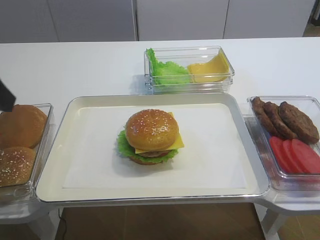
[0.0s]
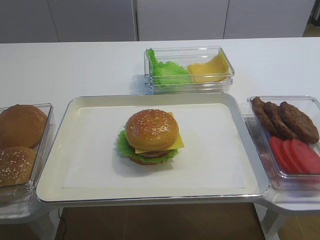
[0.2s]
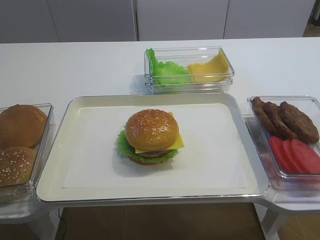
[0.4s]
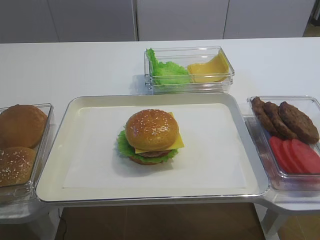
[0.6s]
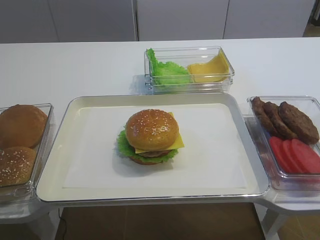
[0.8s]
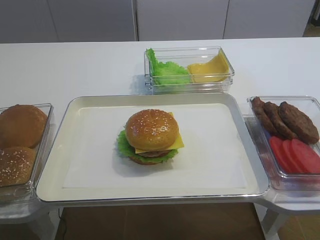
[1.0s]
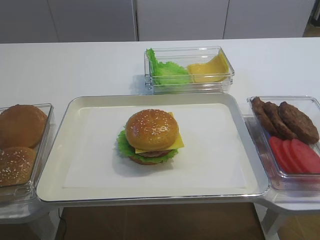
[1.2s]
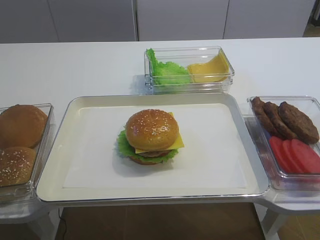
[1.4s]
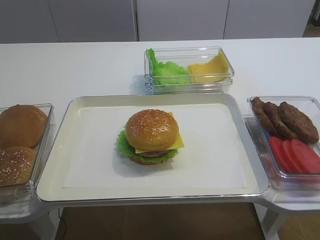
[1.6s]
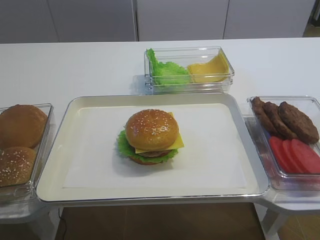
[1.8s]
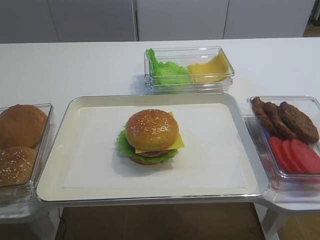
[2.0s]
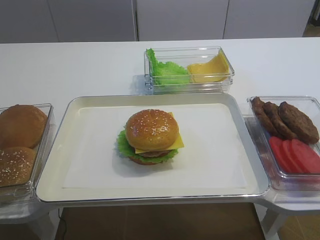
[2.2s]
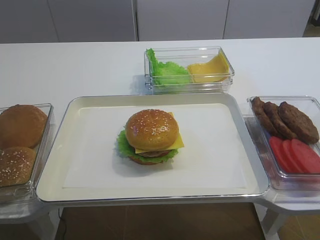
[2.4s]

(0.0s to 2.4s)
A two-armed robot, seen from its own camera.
0.0s - 1.2s: The left gripper goes about 20 cm backward.

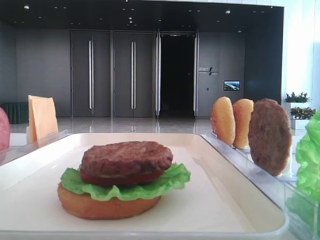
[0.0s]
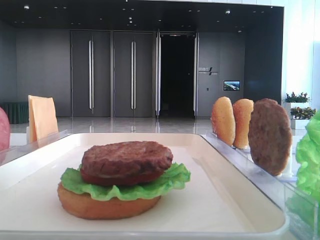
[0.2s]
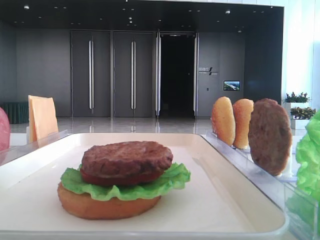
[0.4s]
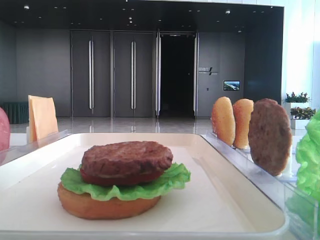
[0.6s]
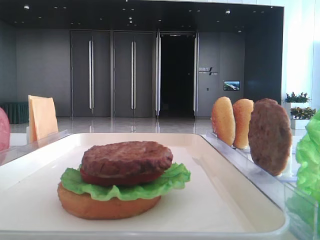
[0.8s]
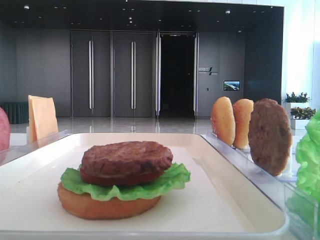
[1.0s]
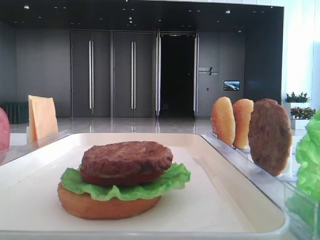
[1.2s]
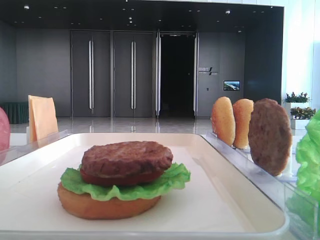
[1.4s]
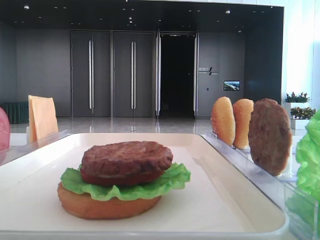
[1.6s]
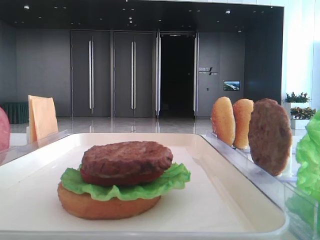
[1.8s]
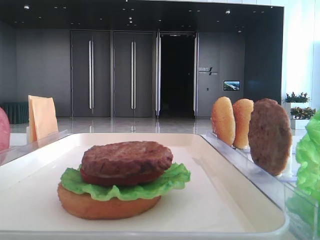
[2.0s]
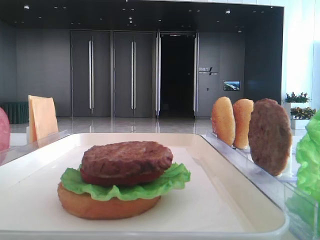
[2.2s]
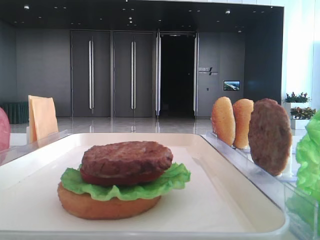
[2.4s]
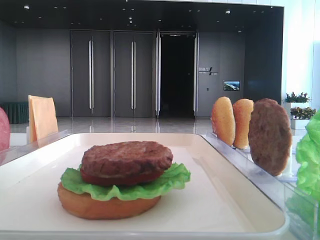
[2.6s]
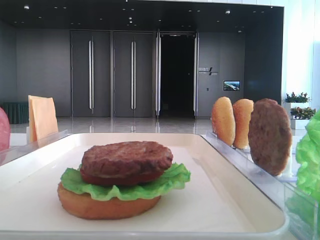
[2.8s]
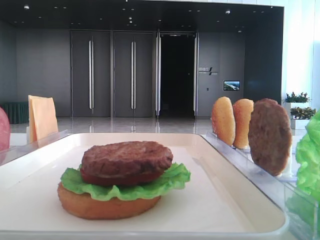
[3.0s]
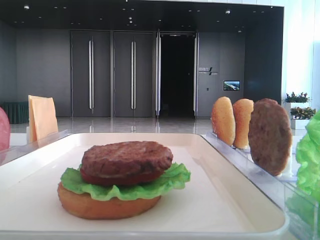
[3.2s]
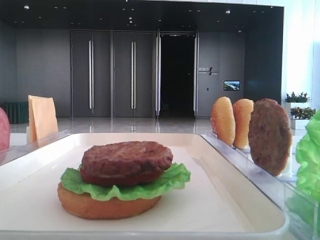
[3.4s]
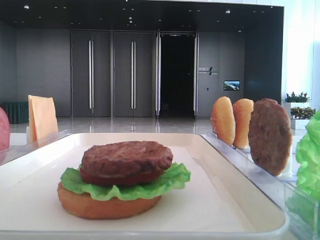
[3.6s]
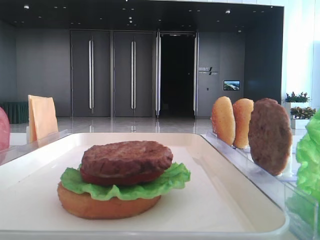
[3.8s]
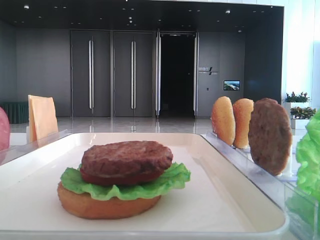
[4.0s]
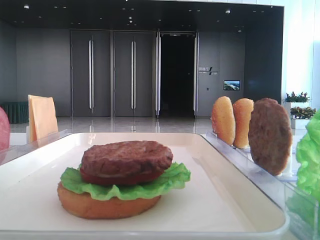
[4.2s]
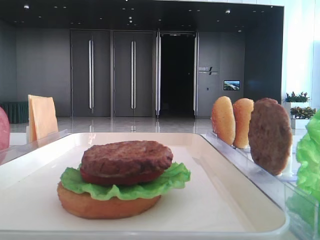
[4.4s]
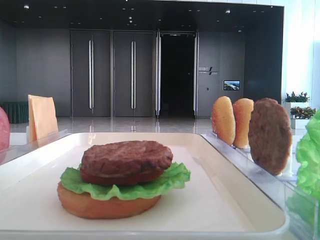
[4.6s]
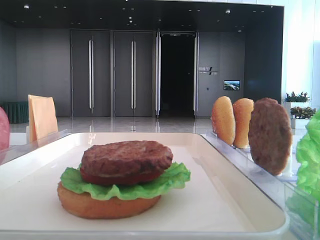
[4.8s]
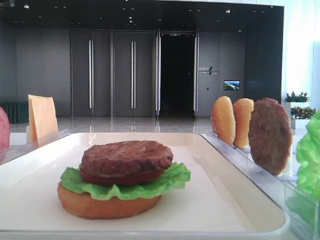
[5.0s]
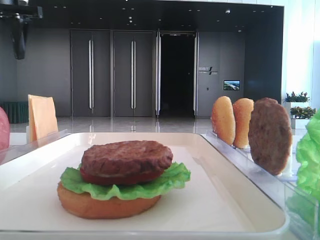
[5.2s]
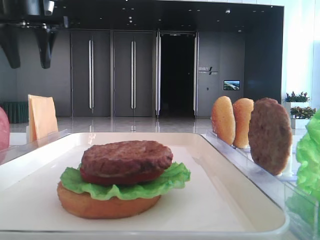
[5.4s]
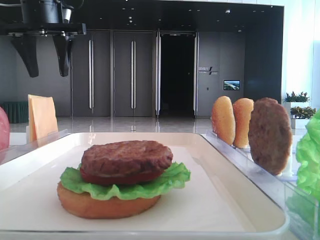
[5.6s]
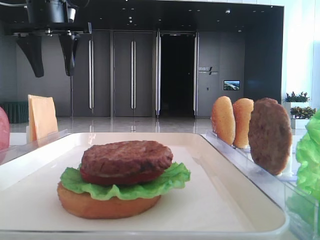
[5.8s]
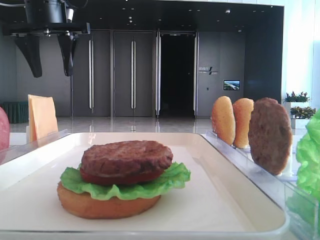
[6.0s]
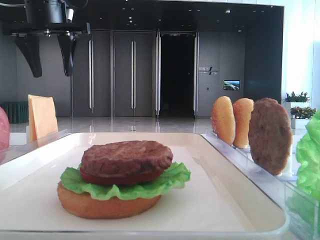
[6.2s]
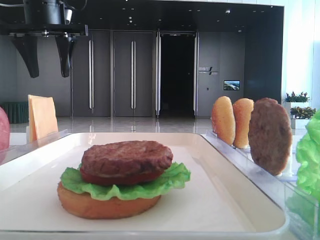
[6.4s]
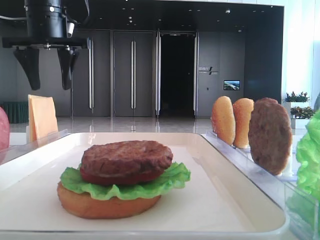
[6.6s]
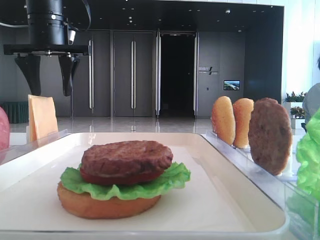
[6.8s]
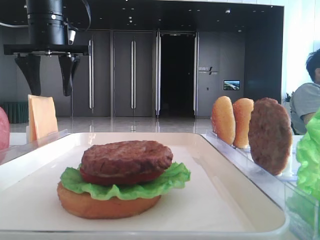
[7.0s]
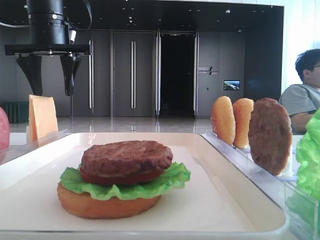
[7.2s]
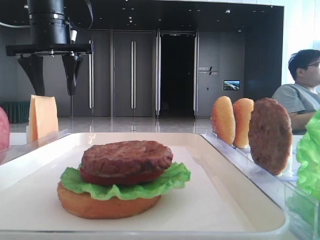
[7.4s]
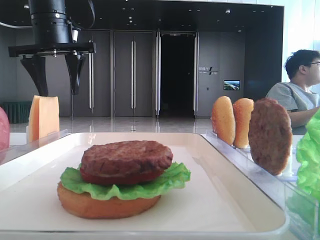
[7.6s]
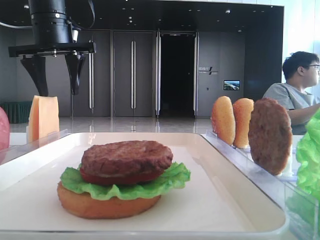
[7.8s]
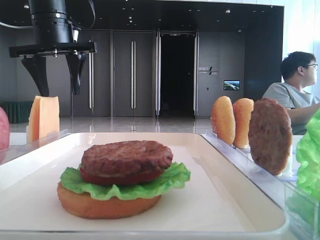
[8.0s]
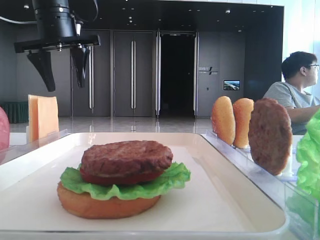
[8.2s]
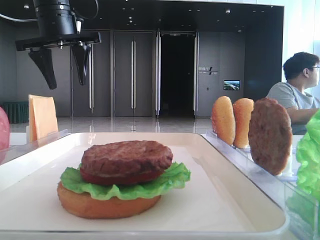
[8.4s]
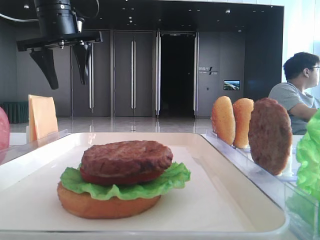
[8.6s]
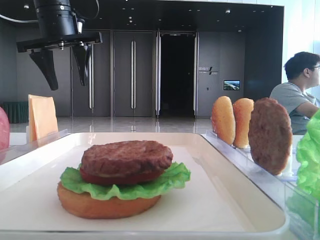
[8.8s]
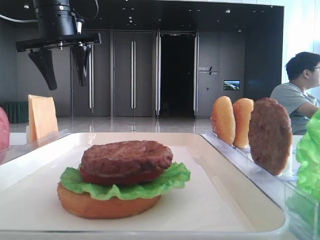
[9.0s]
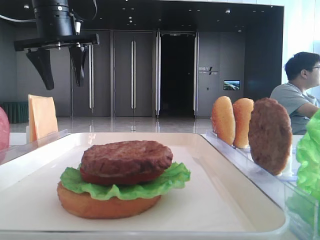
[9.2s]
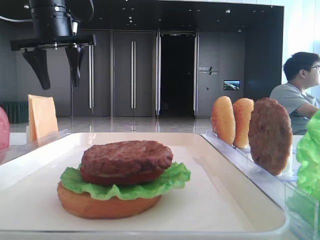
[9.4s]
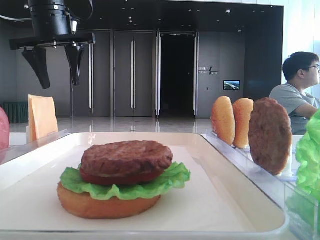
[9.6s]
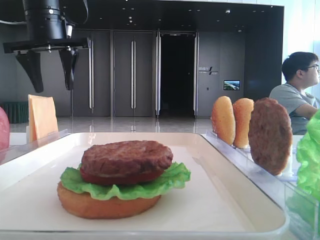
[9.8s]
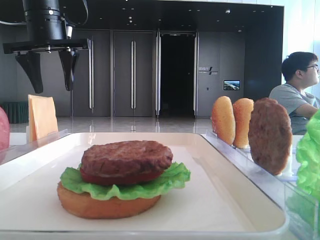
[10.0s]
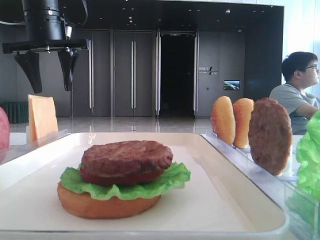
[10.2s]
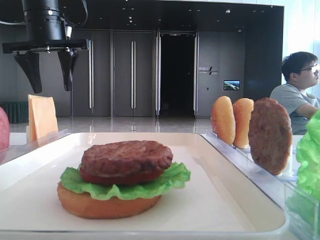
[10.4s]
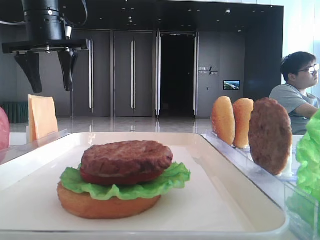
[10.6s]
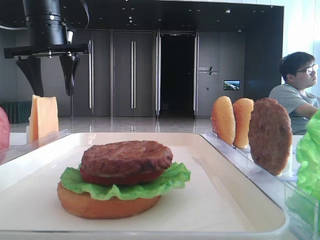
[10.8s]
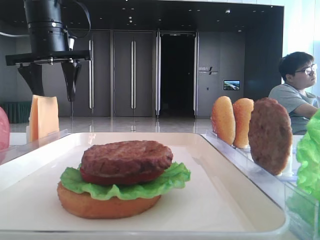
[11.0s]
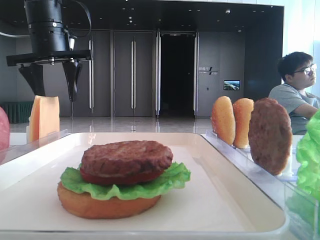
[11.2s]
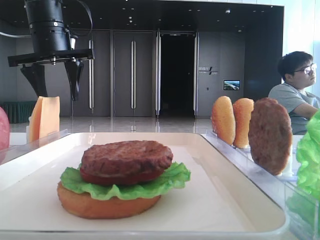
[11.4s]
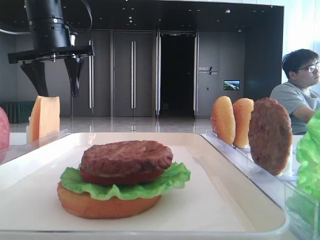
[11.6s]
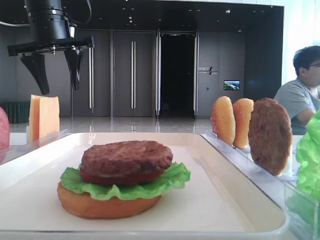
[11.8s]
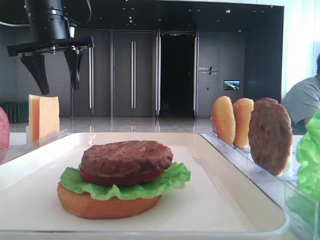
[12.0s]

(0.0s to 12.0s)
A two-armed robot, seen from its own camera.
4.4s - 6.0s: The left gripper heads to the right, forward and downward, covering some 20 cm.
6.0s - 12.0s: The grippers move only a little.

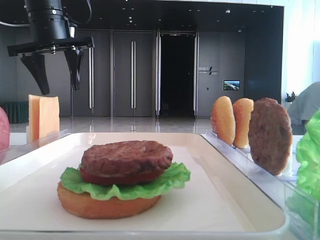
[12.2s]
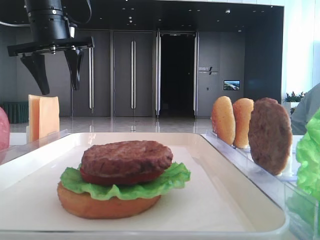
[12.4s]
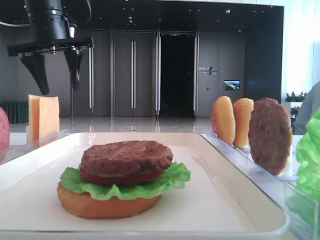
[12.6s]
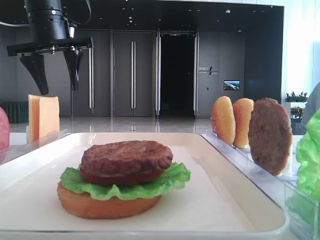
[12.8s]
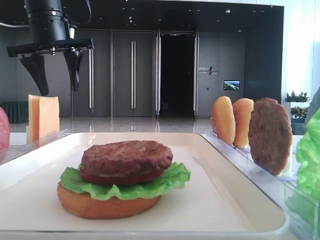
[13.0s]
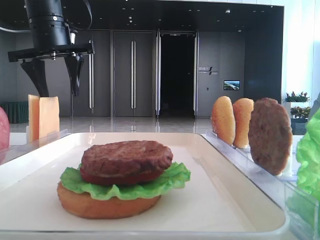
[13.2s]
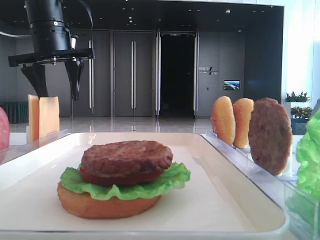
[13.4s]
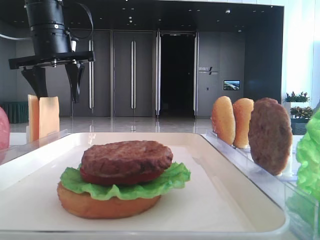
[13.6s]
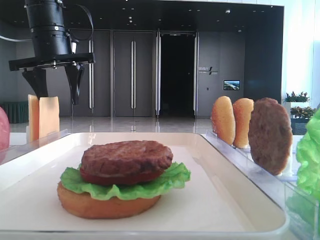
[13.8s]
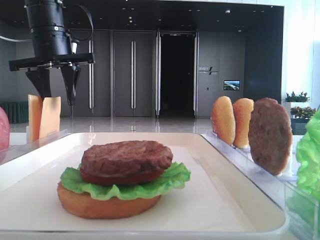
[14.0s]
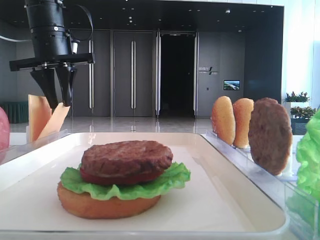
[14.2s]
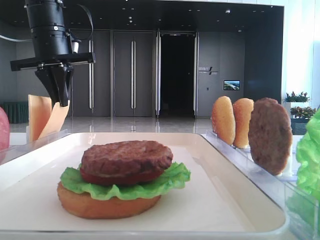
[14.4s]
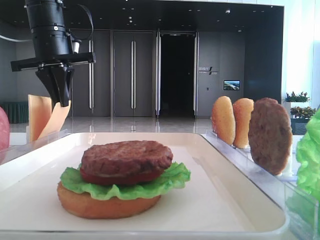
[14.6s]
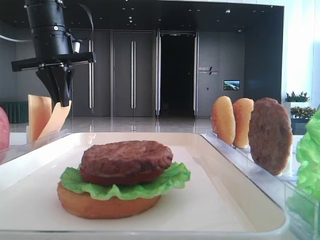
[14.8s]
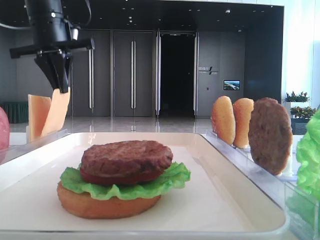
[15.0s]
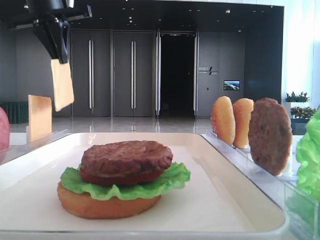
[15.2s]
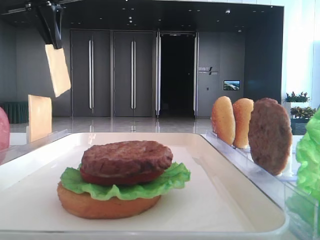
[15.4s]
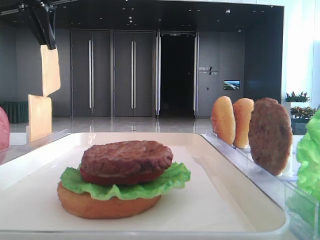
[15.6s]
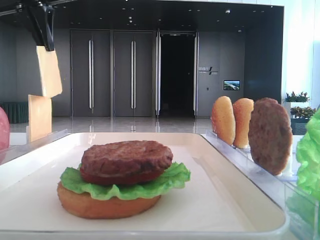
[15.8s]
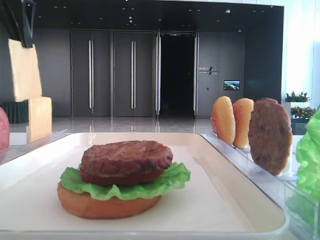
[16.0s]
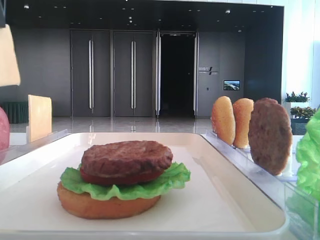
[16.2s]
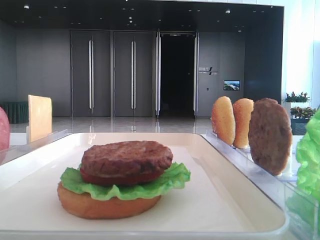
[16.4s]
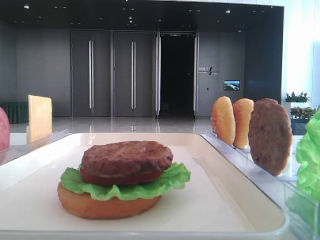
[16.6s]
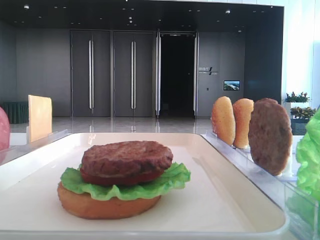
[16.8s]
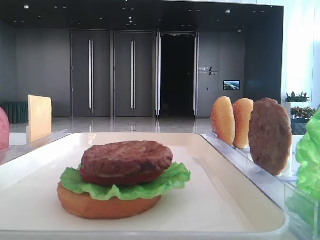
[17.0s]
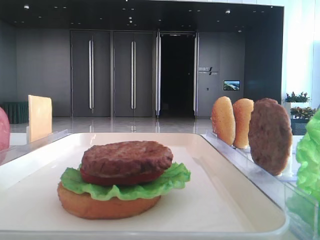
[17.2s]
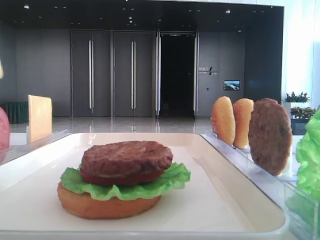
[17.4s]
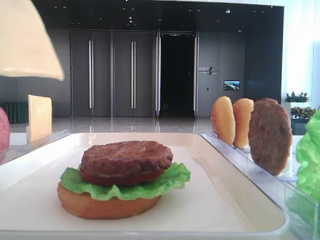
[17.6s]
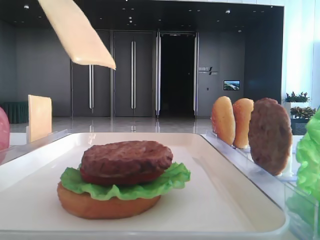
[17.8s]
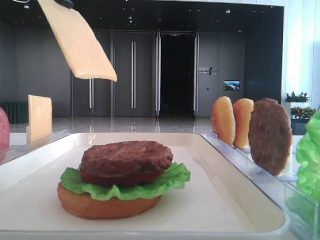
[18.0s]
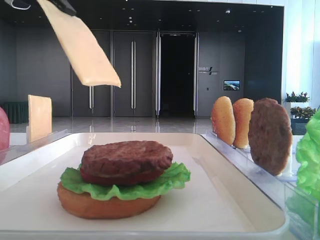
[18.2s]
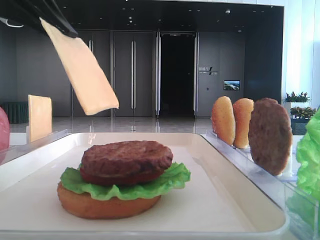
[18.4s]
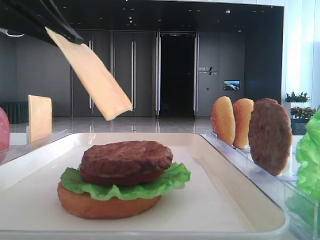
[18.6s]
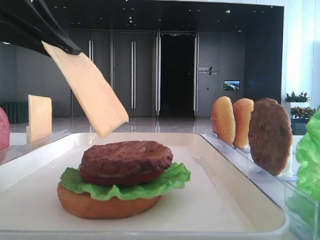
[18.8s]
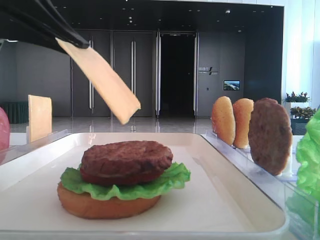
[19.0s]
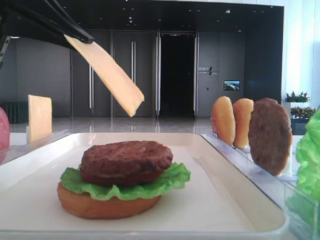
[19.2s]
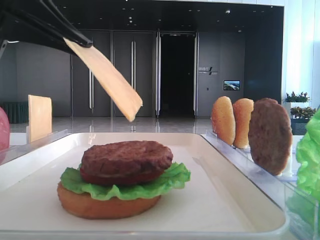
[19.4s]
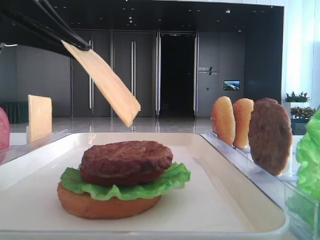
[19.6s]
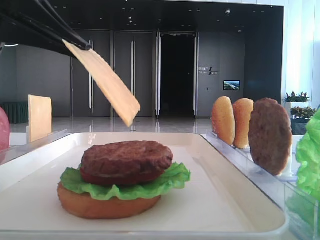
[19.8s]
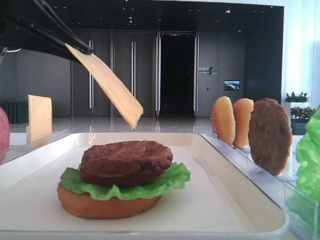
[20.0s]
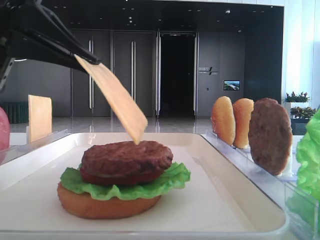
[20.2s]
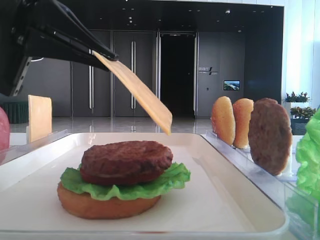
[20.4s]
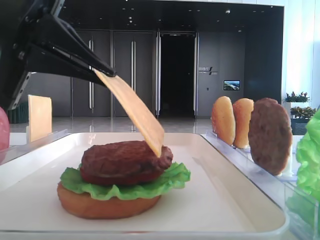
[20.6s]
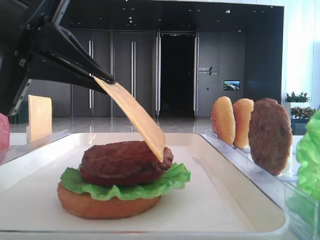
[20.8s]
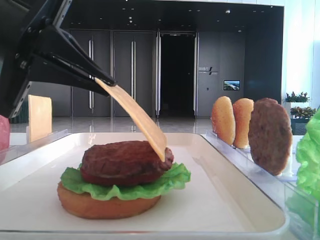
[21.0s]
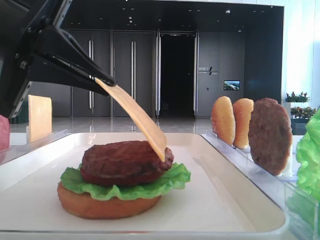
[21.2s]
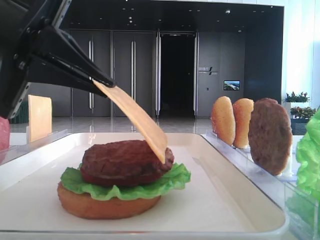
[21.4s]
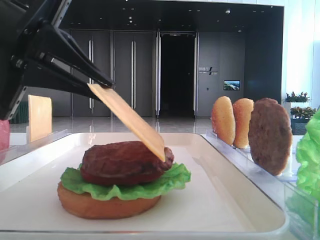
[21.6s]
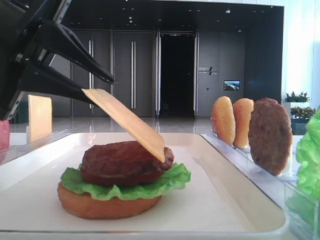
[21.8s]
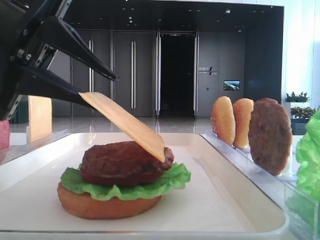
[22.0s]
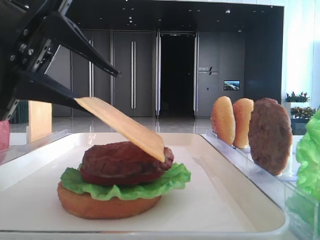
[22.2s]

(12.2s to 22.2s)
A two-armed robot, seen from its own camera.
Step, 12.2s - 14.6s: Pick up the cheese slice with the left hand.
12.2s - 13.6s: There are only small adjustments of the grippers.
13.6s - 15.0s: The left gripper closes.
15.0s - 16.4s: The left gripper heads backward and upward, covering about 20 cm.
16.4s - 18.0s: The left gripper is displaced downward and to the right by about 10 cm.
18.0s - 19.4s: The left gripper goes about 5 cm downward.
19.4s - 20.8s: The grippers make only small movements.
20.8s - 22.2s: The left gripper opens its fingers.
